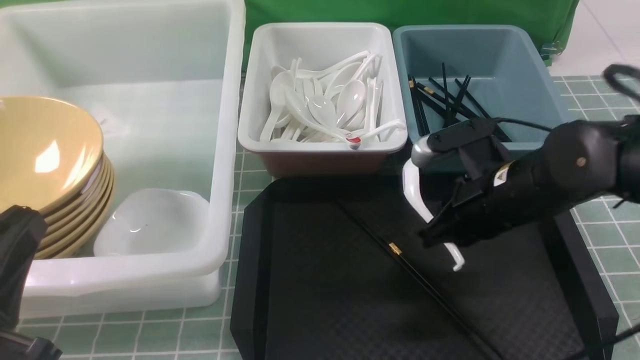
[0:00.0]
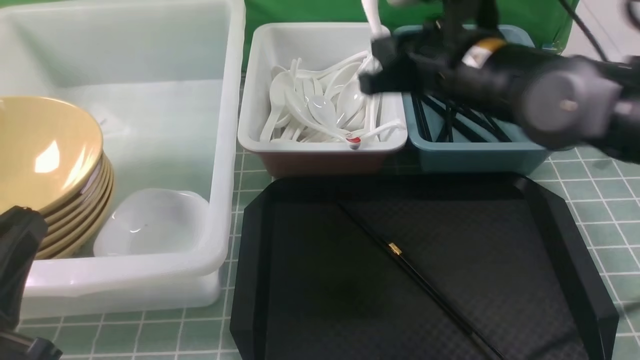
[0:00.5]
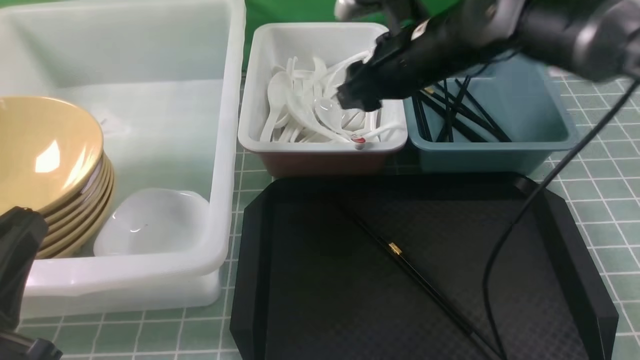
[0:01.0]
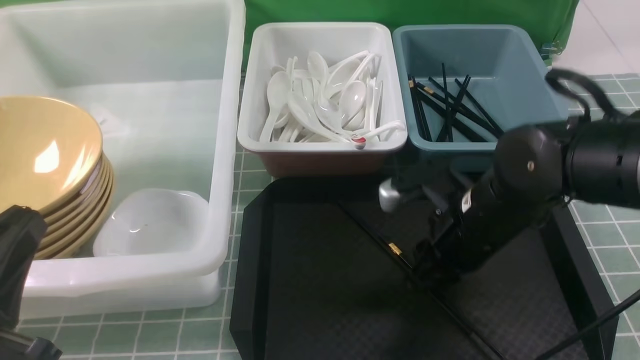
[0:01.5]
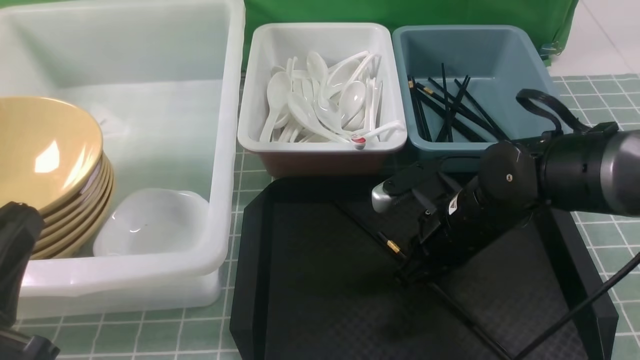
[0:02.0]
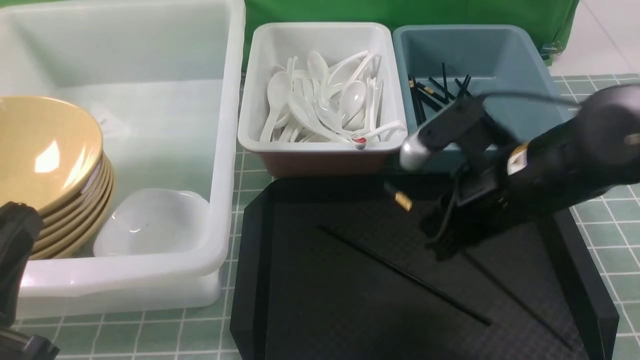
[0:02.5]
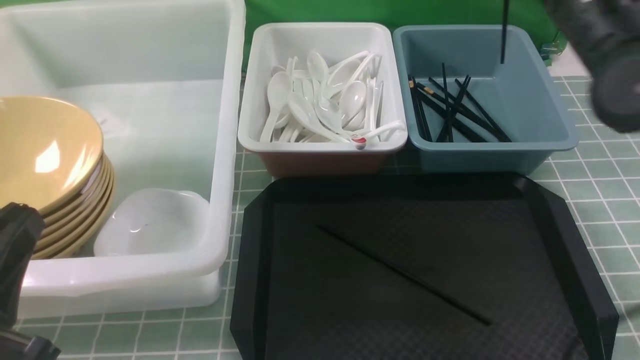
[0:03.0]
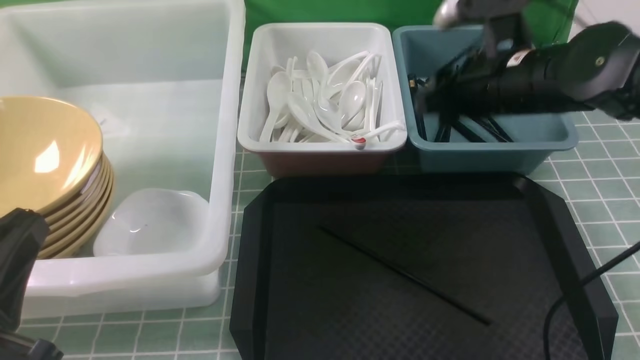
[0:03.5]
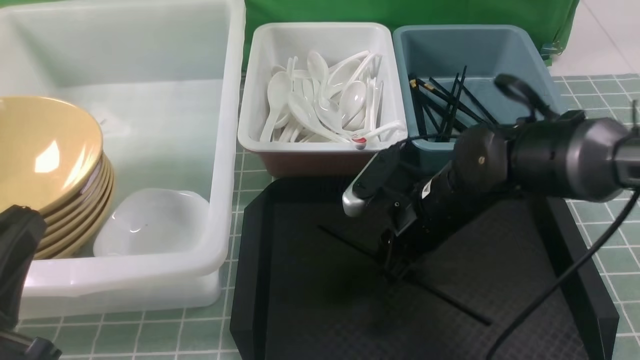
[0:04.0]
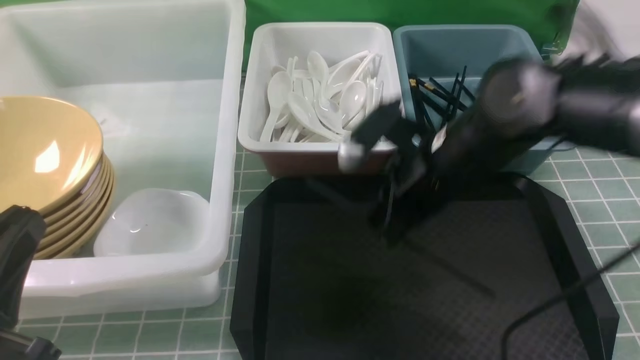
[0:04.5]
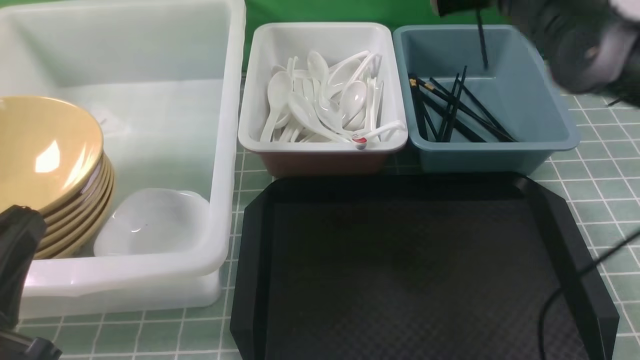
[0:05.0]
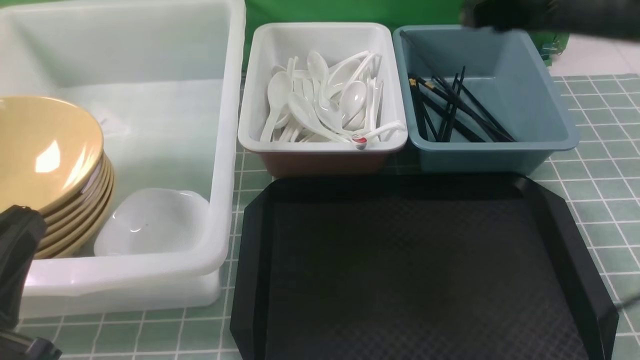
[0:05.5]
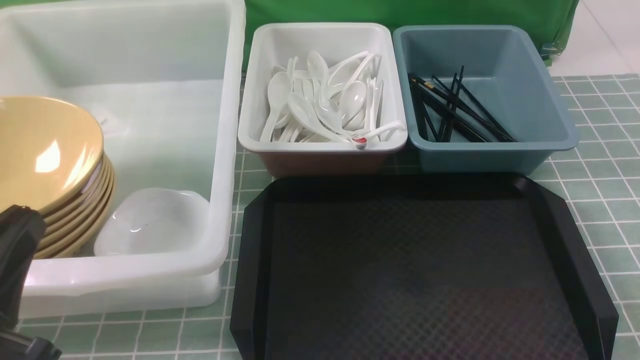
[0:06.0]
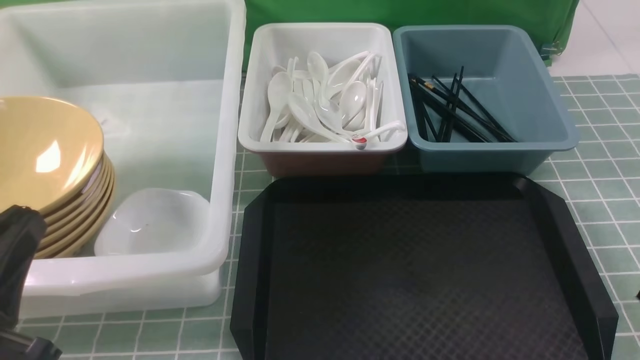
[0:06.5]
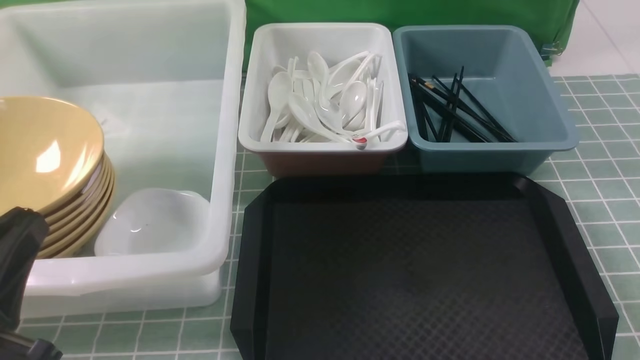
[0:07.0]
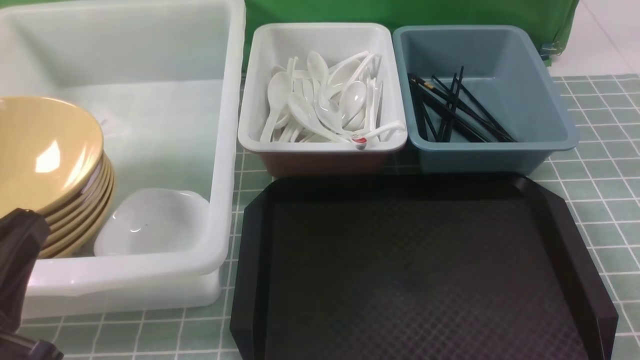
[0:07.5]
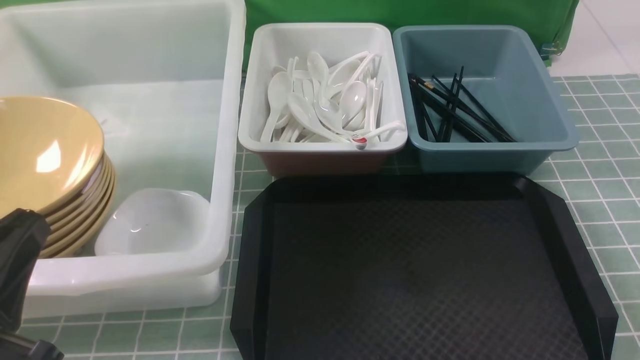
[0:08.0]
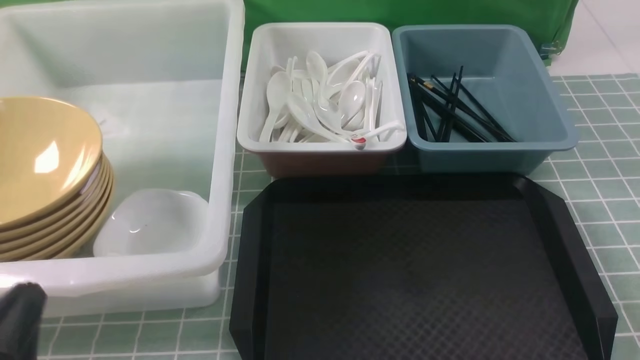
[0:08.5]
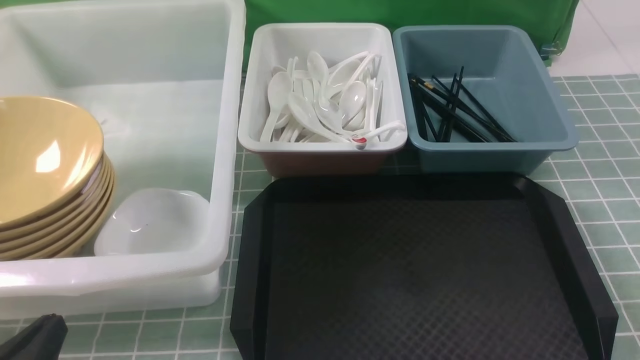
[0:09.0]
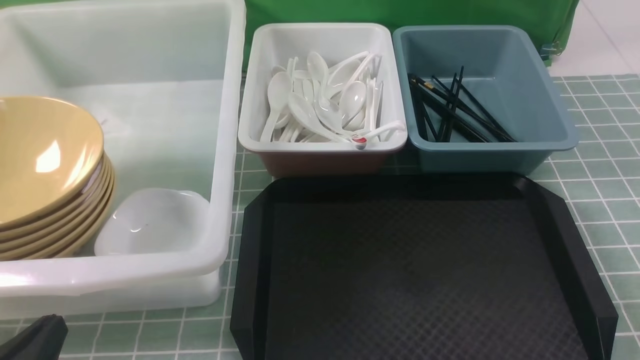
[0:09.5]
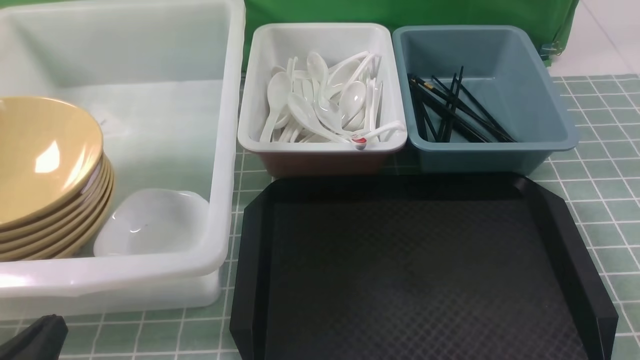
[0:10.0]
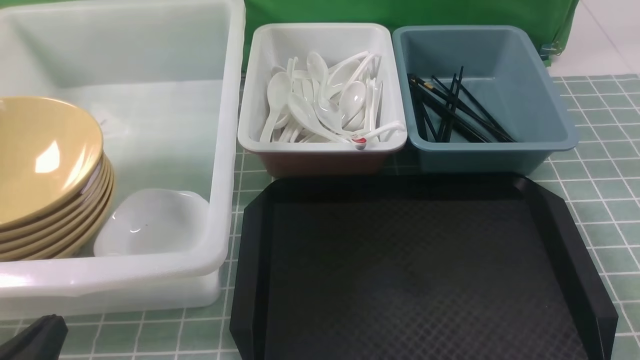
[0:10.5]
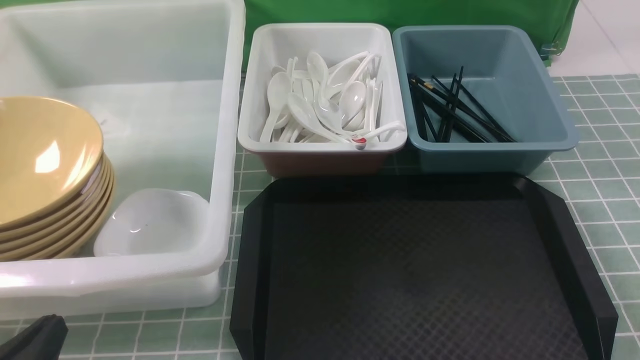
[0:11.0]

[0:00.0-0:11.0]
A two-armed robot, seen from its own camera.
Task of the whole recording: on blue table put chopsticks spoon bowls plates into blue grey white boxes.
Step, 0:00.0 to 0:01.0: use the right arm to put the soup spoon into the small storage box in the middle.
Step, 0:01.5 to 0:02.0: use the right arm to grab a chopstick.
Step, 0:02.5 to 0:03.5: use the right arm to put a chopstick into the small storage box on the right.
Step, 0:04.0 to 0:04.5: use the right arm to grab a chopstick.
0:00.0 to 0:02.0: The right gripper goes upward and returns, about 10 cm each way, and opens and closes again.
0:02.0 to 0:03.5: The right gripper travels upward and forward by about 10 cm, and opens.
0:03.5 to 0:05.5: The right gripper is displaced upward by about 15 cm, and closes up.
0:05.5 to 0:07.5: The right gripper goes about 35 cm backward, downward and to the right.
0:07.5 to 0:09.0: The left gripper goes some 10 cm downward.
0:09.0 to 0:11.0: The two grippers keep their place.
